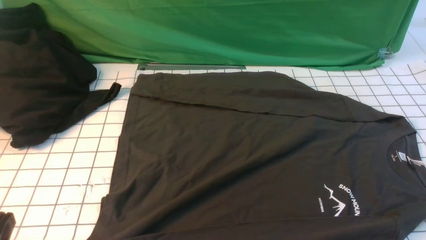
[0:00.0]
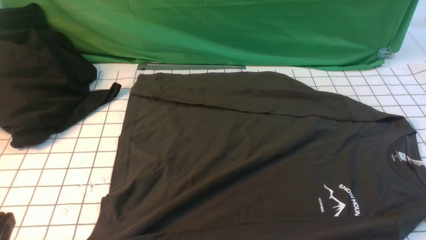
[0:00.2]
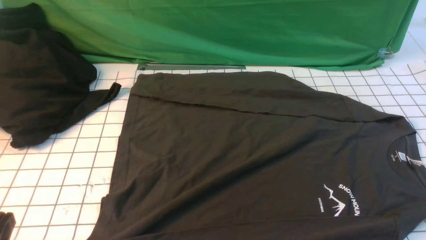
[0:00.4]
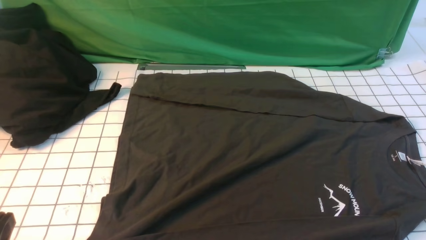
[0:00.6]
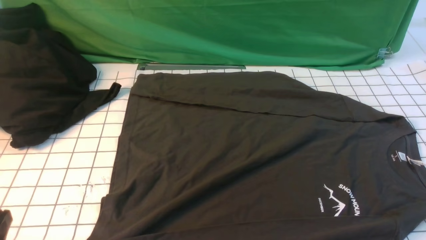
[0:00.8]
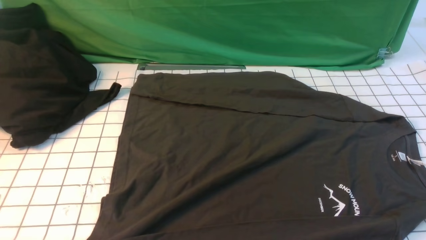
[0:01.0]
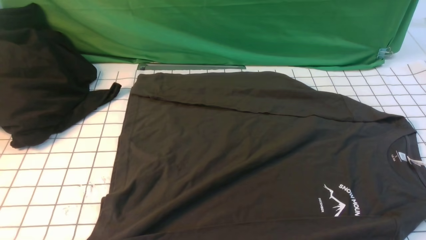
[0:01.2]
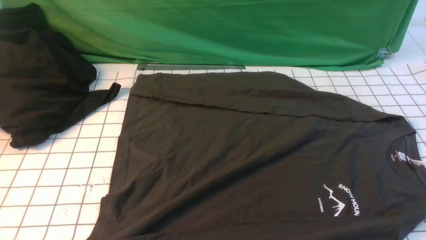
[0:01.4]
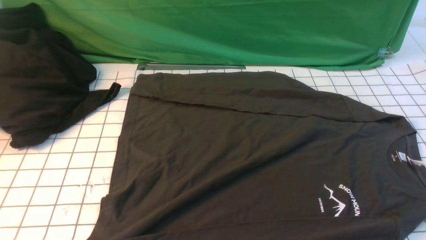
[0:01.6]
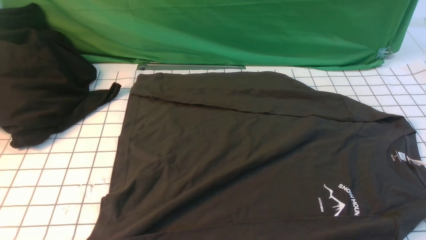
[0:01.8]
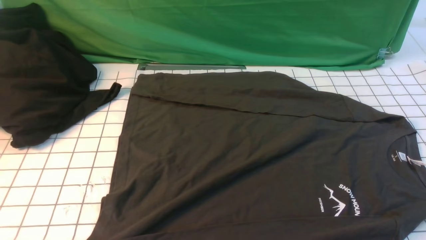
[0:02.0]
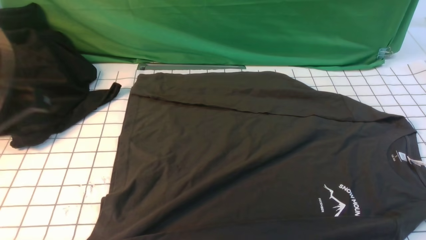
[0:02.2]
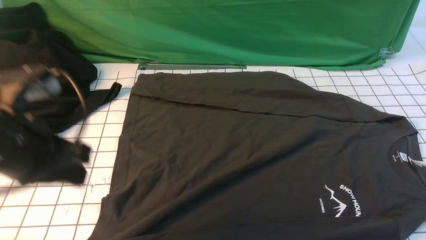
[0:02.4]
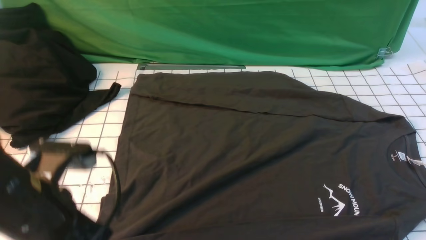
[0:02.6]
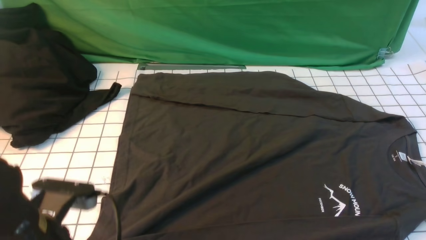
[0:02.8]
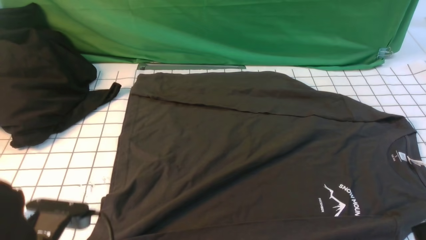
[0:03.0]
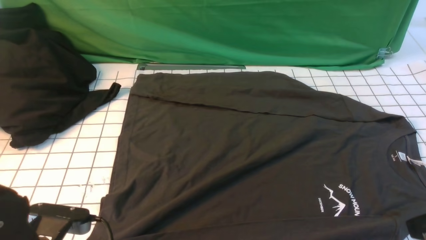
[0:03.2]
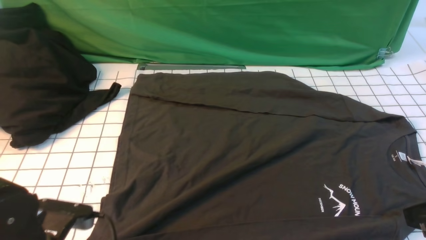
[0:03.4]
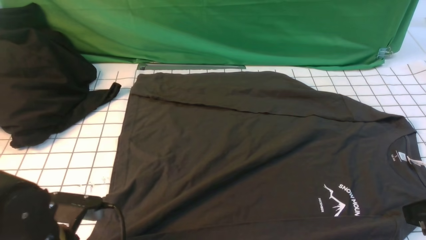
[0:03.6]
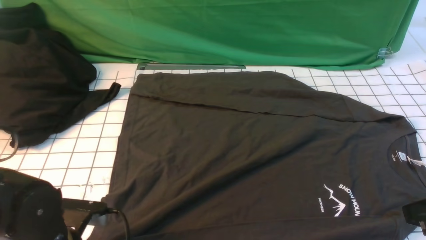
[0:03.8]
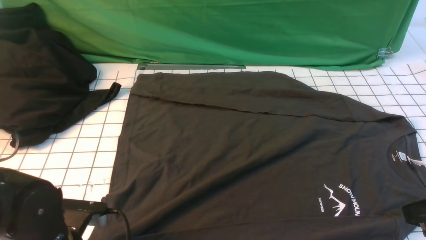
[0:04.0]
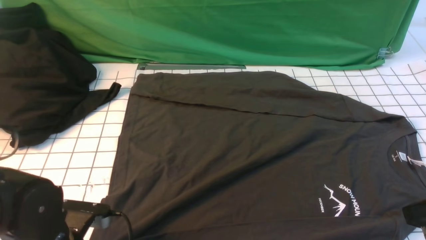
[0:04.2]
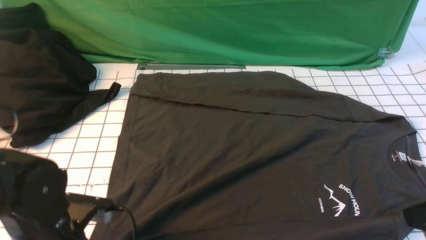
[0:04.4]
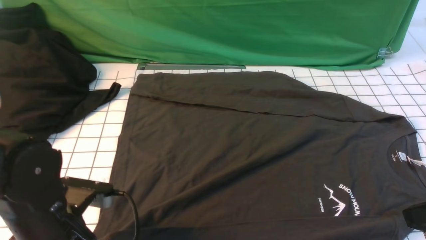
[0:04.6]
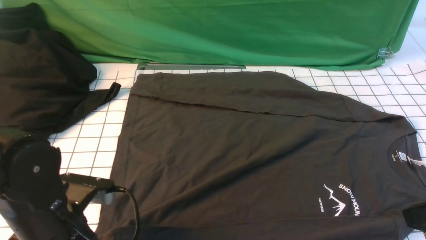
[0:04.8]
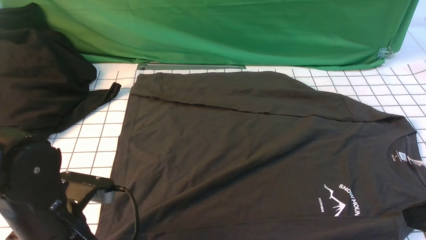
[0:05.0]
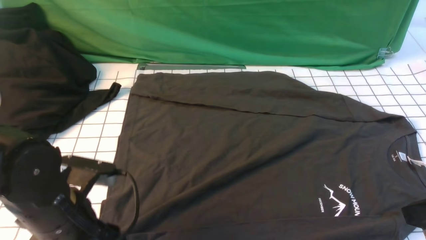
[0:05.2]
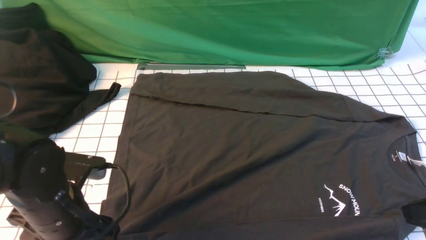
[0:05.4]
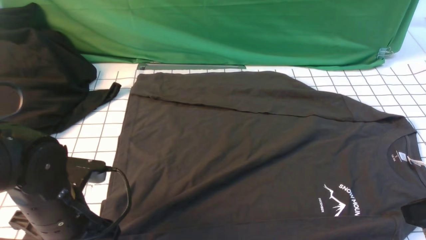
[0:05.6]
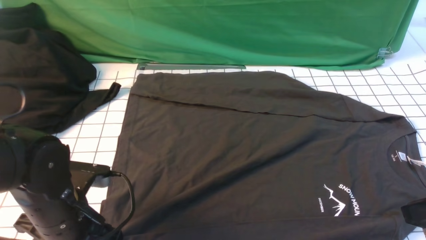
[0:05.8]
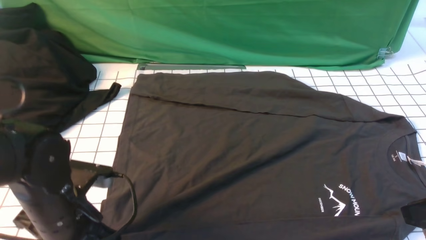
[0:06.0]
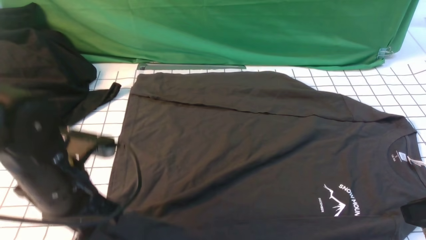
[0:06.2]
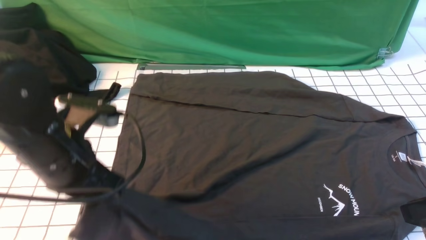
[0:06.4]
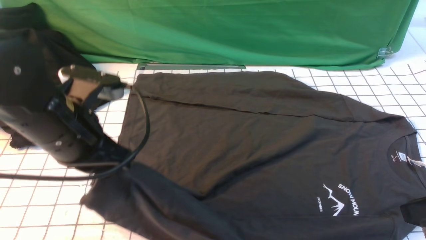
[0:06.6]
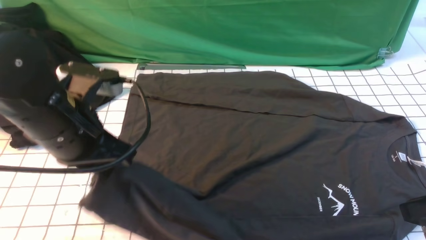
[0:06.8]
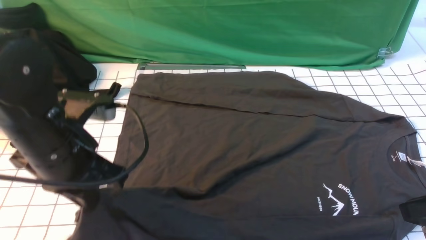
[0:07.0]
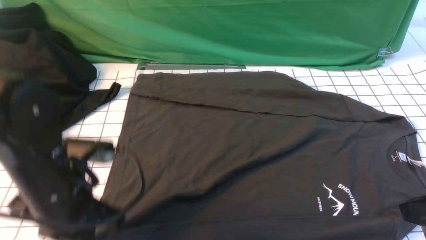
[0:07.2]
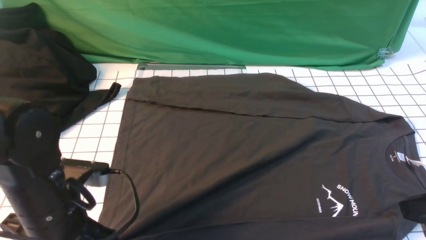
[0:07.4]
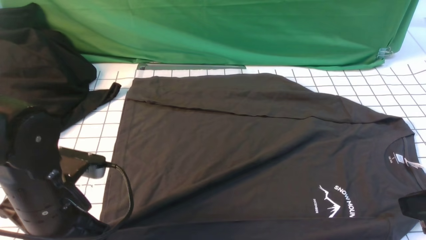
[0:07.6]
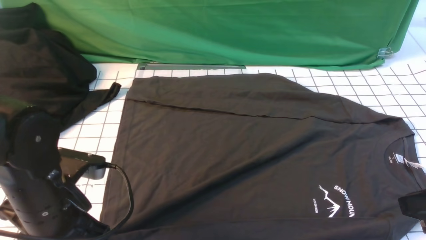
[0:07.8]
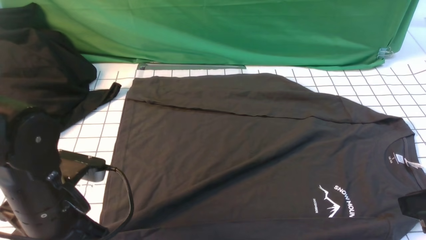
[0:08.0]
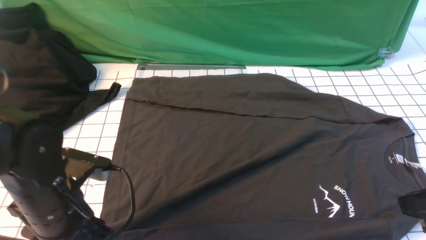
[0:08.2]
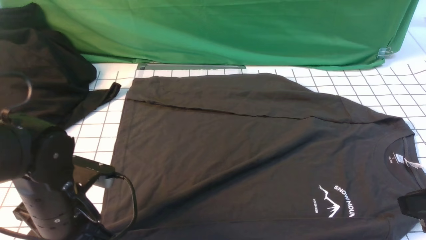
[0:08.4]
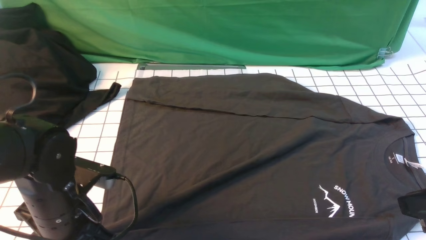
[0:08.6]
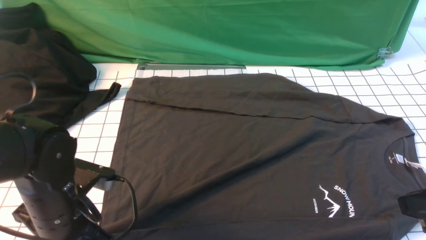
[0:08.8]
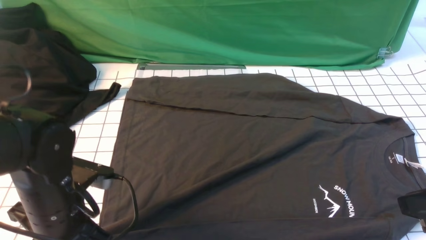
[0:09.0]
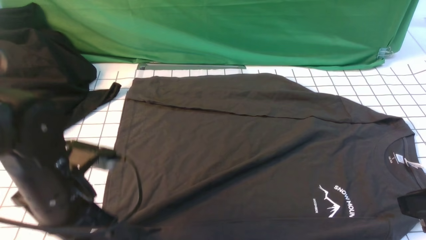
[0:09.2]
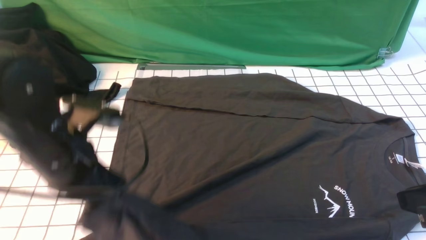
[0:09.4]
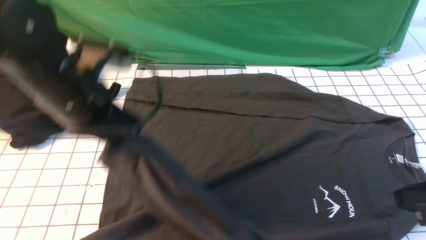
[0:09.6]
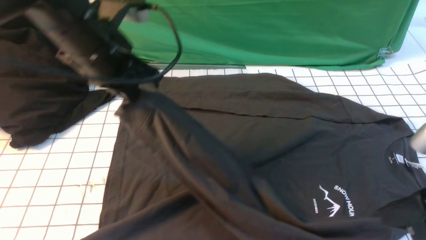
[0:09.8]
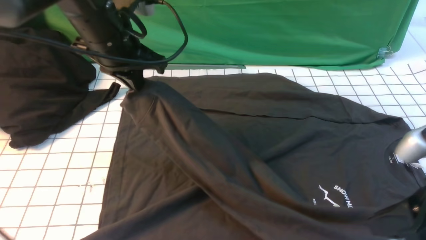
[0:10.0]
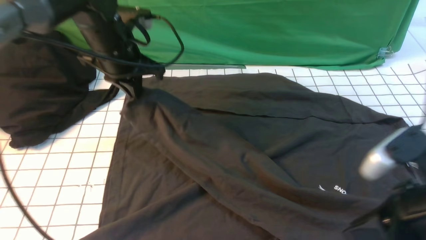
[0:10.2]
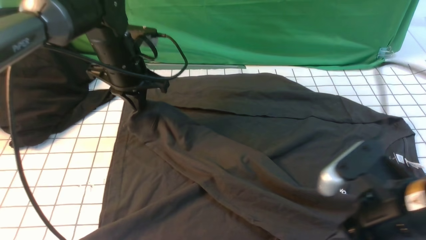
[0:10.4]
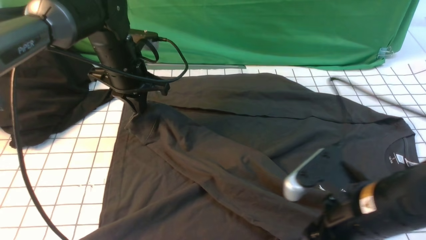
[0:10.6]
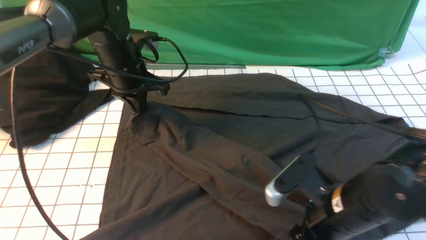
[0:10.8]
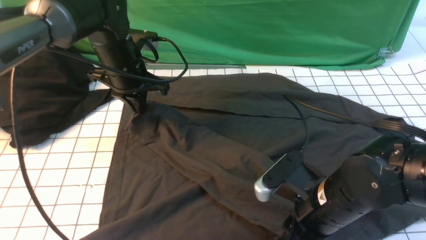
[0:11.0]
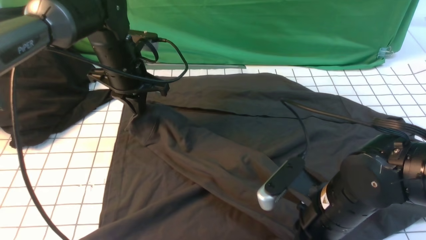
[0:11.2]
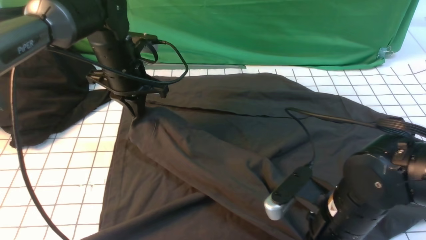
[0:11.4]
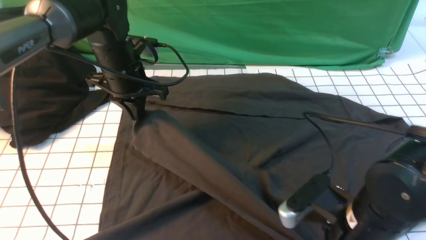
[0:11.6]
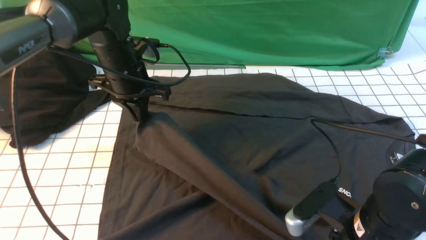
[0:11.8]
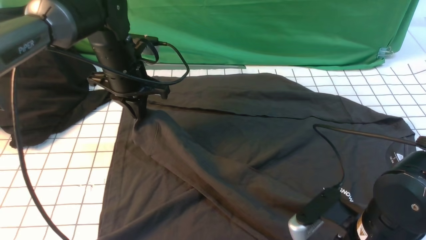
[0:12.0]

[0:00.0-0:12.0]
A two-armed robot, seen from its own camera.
Step, 0:00.0 to 0:08.8: use the left arm to clamp the cuff closest to it.
0:01.6 to 0:03.0: The left gripper travels forward, downward and to the right by approximately 15 cm.
0:03.0 to 0:04.4: The left gripper opens, then closes again.
0:04.4 to 0:06.0: The left gripper shifts by about 5 cm, and opens, then closes once more.
0:06.0 to 0:07.6: The left gripper reaches roughly 10 cm upward, then returns.
0:07.6 to 0:09.0: The left gripper opens and closes again.
0:09.0 to 0:10.4: The left gripper travels forward by about 20 cm. Meanwhile the right gripper moves to the left and downward, approximately 10 cm, and opens its fingers.
0:10.4 to 0:12.0: The right gripper shifts approximately 5 cm downward, and closes.

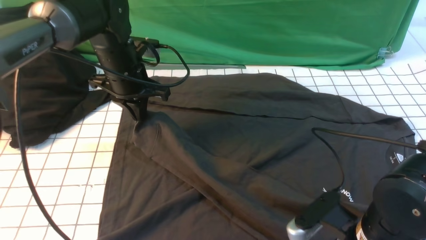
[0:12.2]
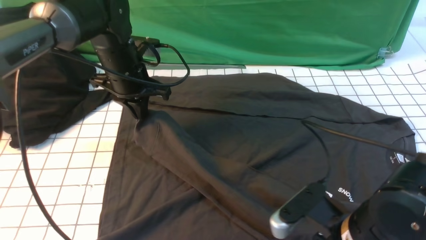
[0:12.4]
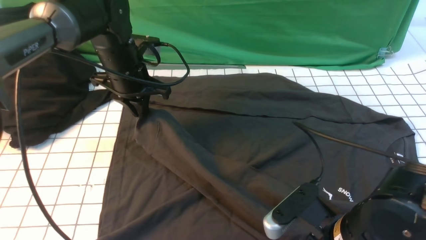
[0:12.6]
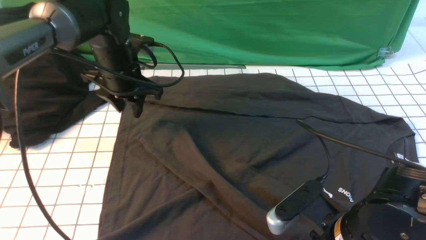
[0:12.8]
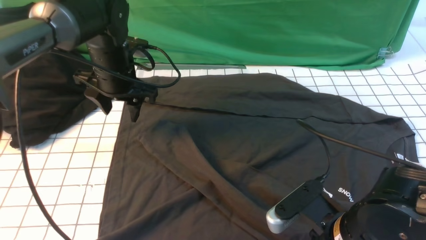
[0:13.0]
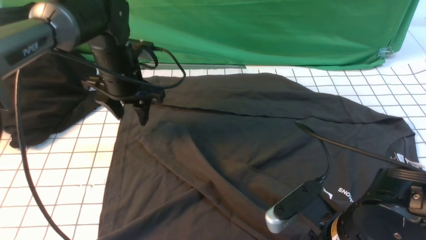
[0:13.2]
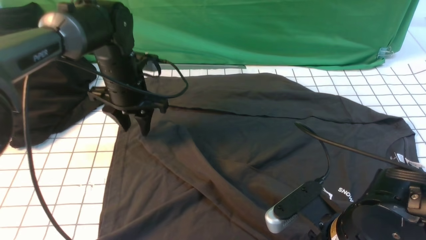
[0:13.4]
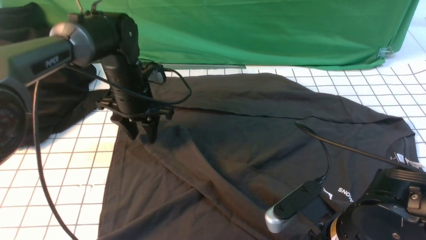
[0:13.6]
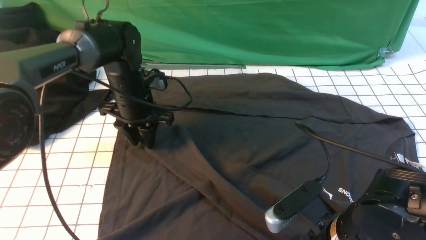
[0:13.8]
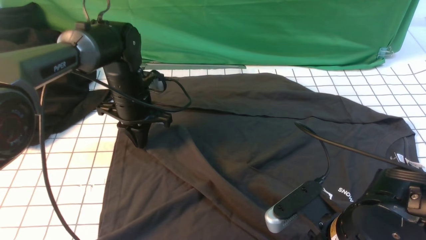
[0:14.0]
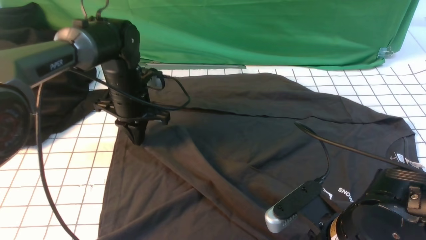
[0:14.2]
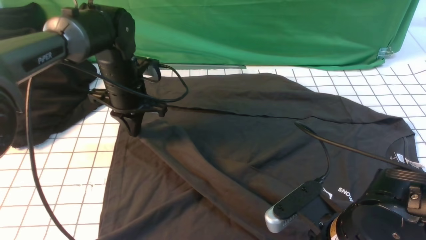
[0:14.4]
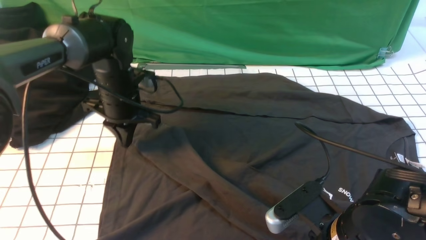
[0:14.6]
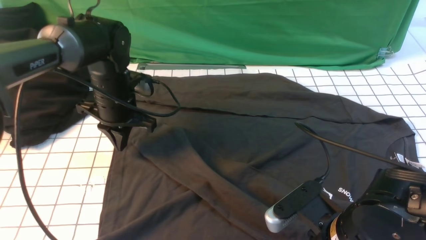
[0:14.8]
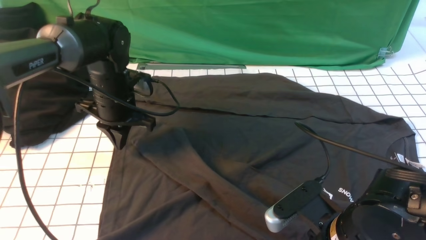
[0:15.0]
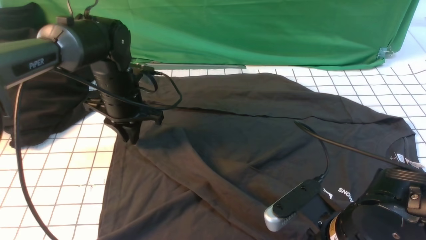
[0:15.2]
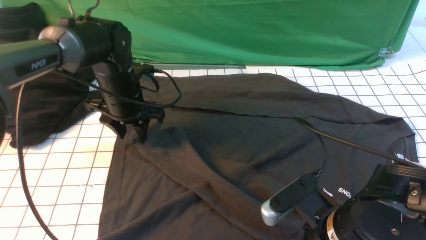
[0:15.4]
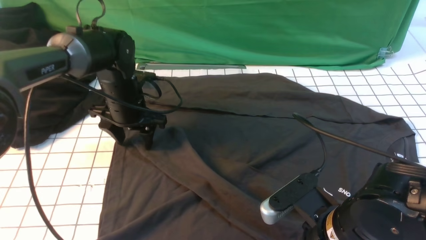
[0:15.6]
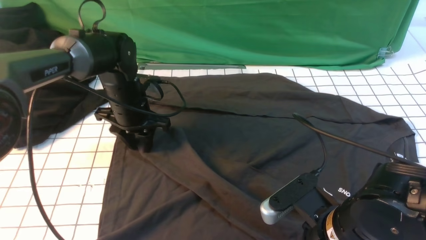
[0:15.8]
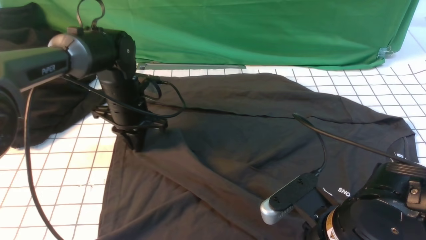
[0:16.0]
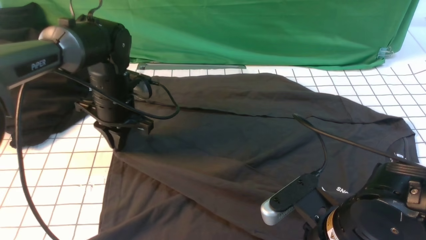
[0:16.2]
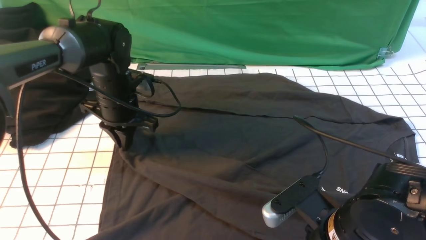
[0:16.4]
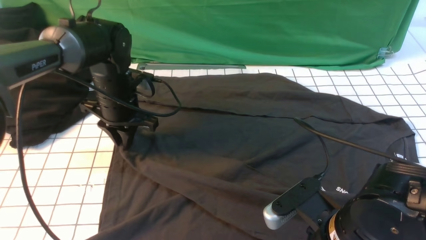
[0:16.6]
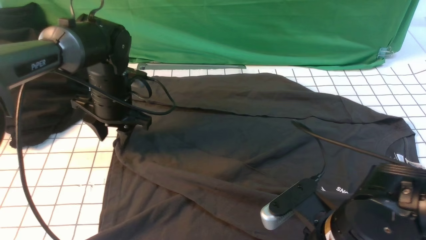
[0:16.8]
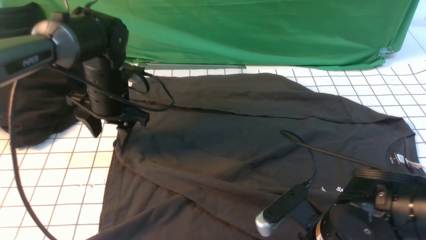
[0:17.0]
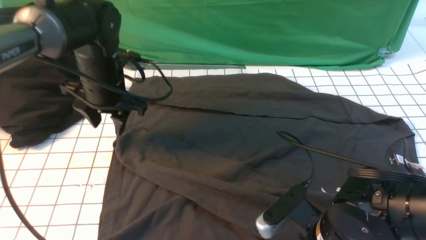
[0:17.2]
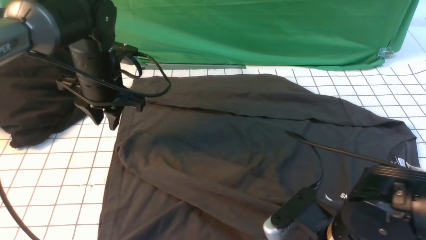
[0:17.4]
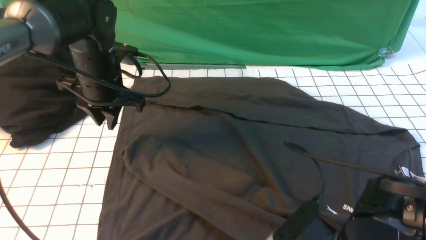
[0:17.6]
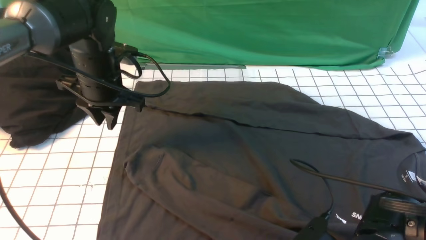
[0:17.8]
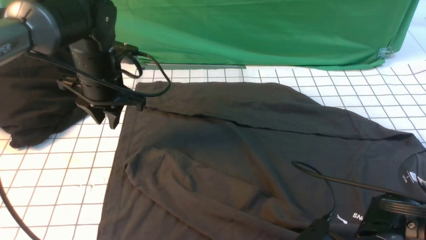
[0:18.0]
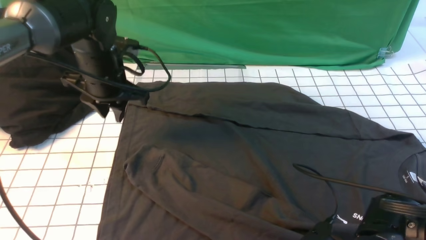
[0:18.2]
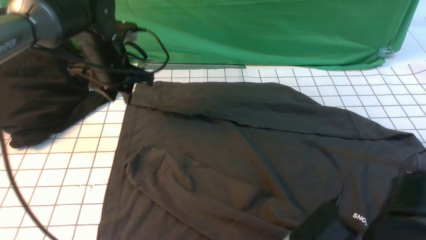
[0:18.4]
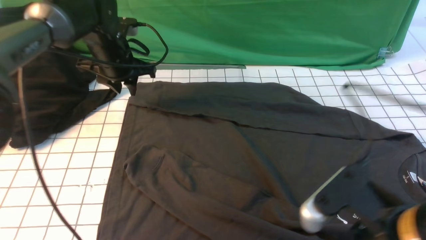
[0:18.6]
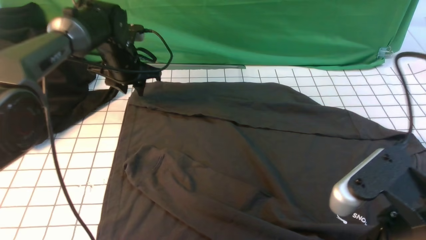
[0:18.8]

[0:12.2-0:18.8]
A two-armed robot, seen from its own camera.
Step, 0:12.2 to 0:16.8: use the left arm to drag and place the cuff at the centered position on the left edge of the fabric.
0:12.2 to 0:13.8: The right gripper opens up. The left gripper is displaced downward by some 5 cm, and opens its fingers.
0:13.8 to 0:15.4: The left gripper opens its fingers.
0:15.4 to 0:17.2: The right gripper closes up, while the left gripper ends up some 5 cm from where it was, and closes, then opens again.
0:17.2 to 0:18.8: The right gripper heads upward and backward, covering roughly 15 cm, and opens its fingers. Meanwhile the left gripper travels forward by about 10 cm.
